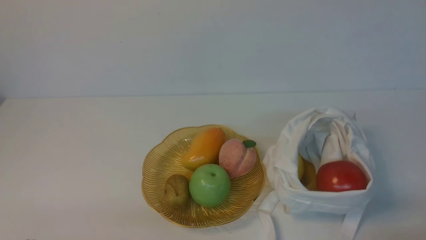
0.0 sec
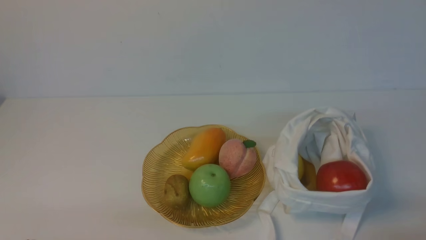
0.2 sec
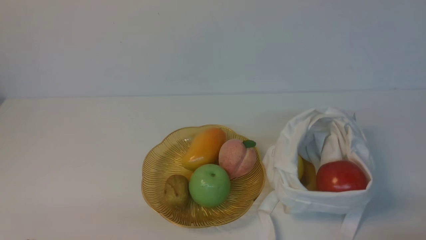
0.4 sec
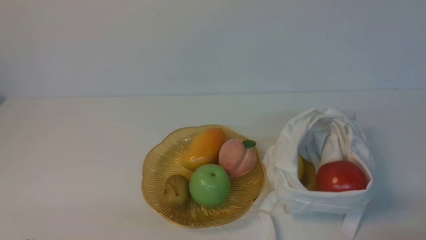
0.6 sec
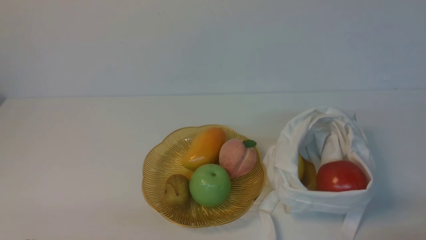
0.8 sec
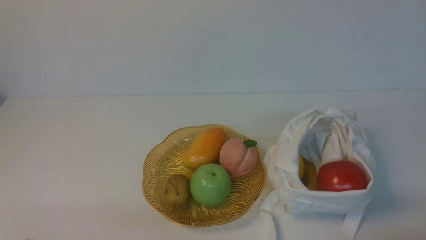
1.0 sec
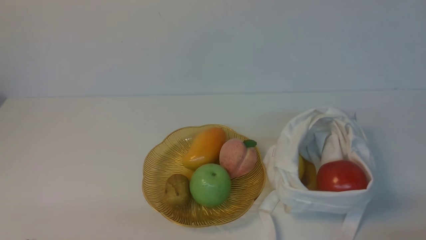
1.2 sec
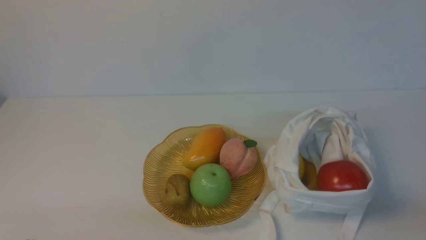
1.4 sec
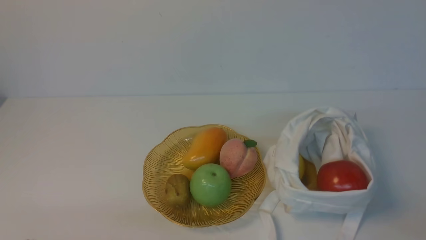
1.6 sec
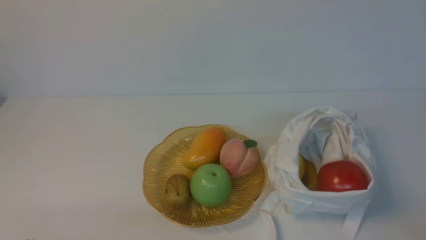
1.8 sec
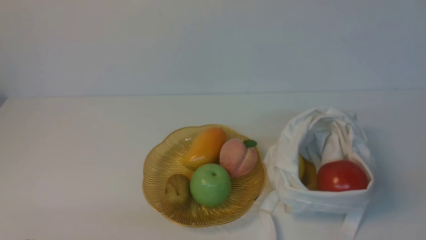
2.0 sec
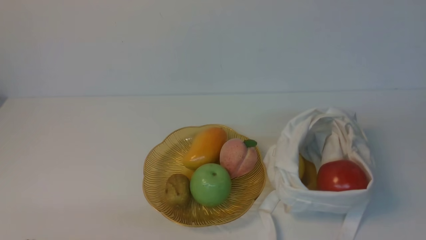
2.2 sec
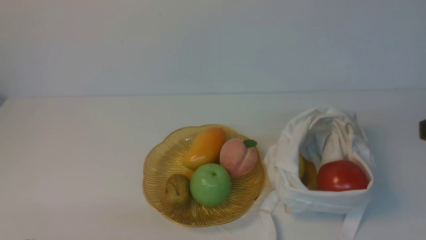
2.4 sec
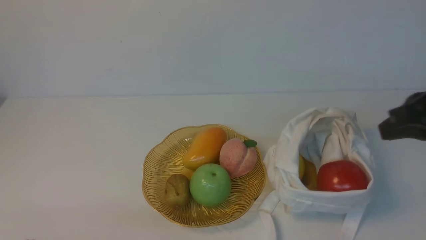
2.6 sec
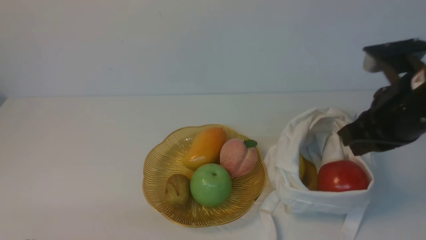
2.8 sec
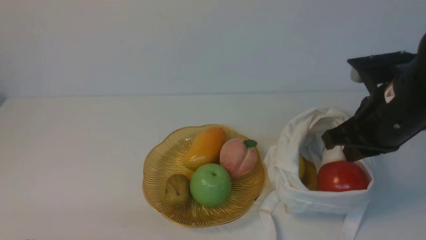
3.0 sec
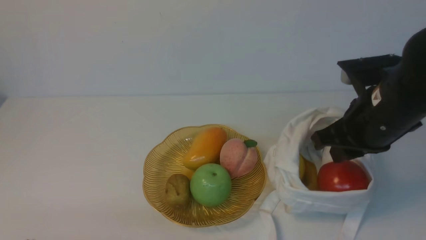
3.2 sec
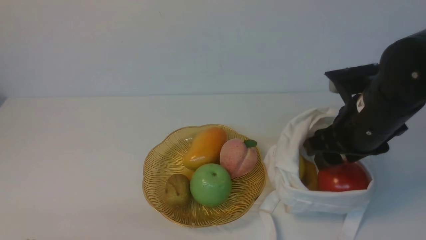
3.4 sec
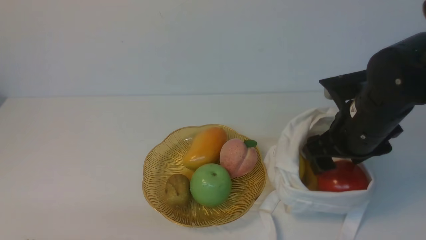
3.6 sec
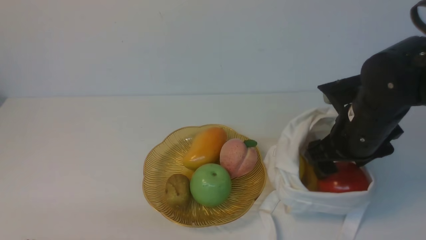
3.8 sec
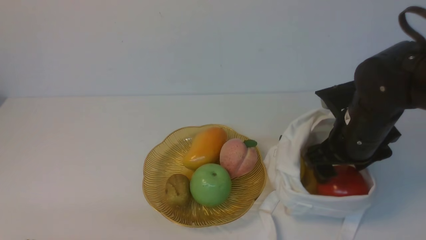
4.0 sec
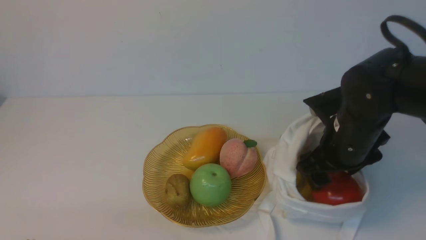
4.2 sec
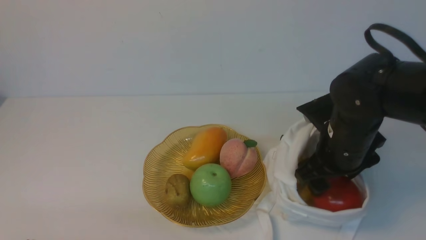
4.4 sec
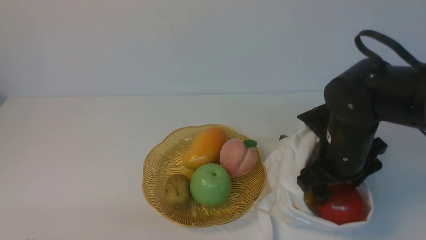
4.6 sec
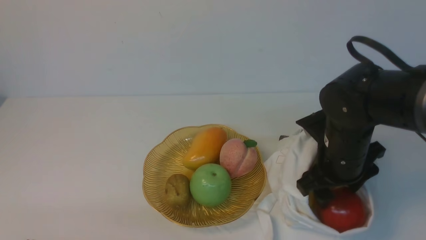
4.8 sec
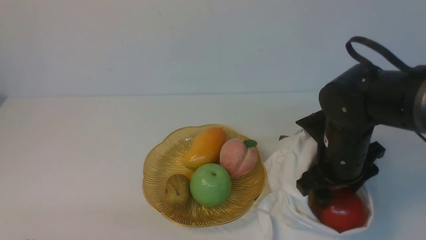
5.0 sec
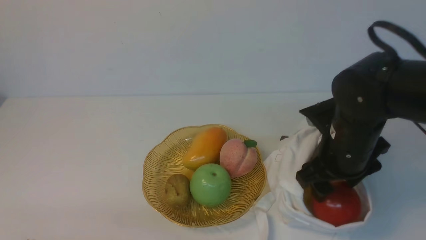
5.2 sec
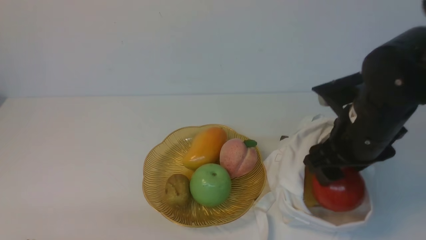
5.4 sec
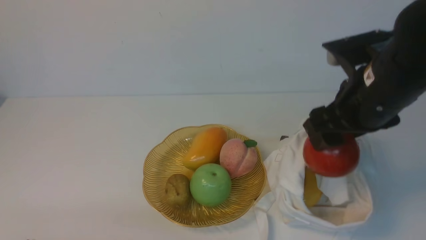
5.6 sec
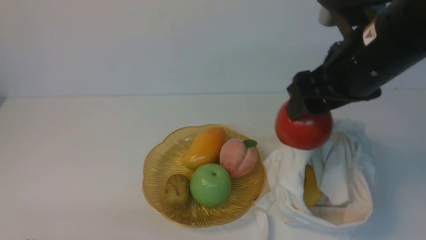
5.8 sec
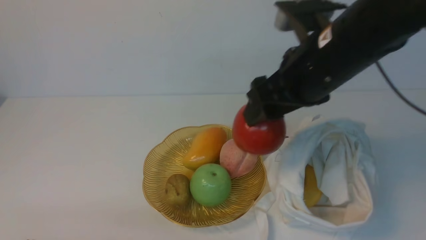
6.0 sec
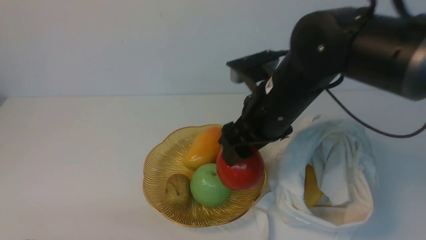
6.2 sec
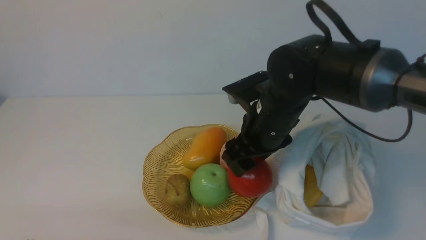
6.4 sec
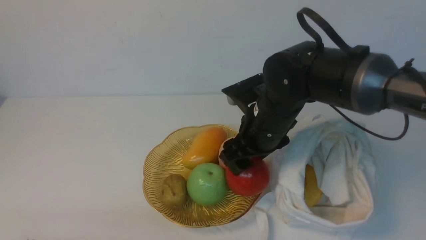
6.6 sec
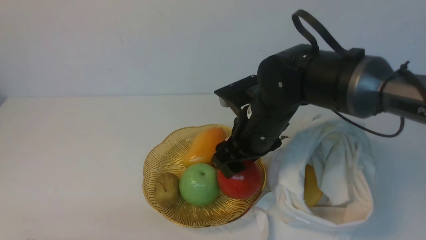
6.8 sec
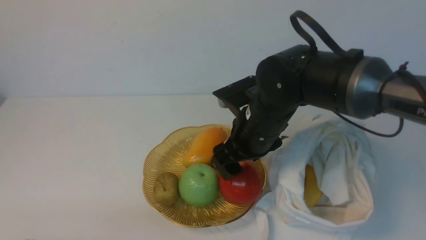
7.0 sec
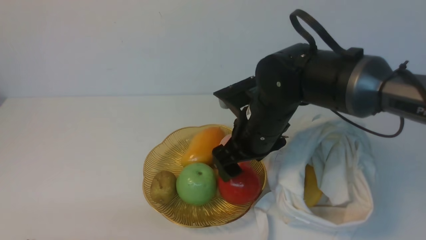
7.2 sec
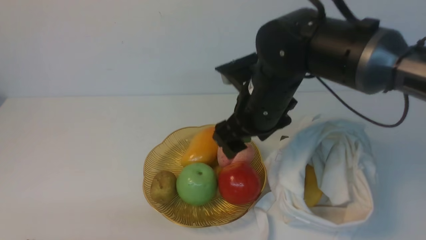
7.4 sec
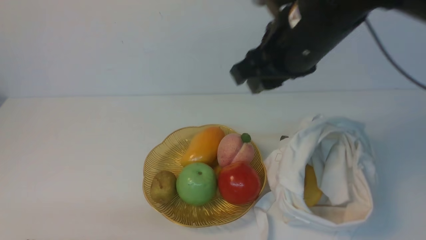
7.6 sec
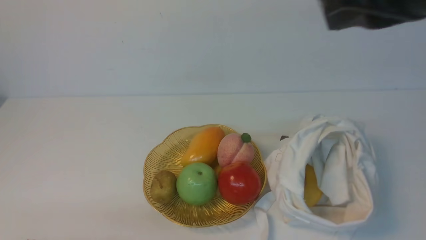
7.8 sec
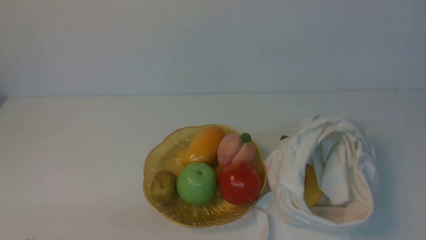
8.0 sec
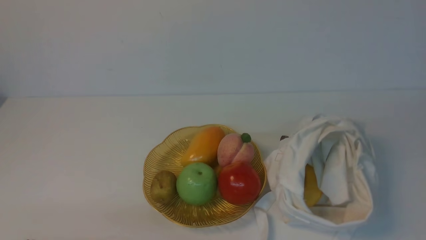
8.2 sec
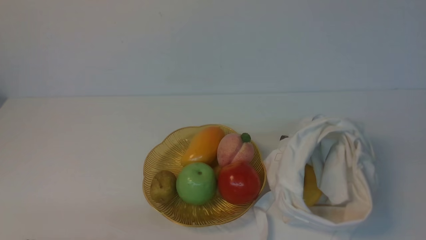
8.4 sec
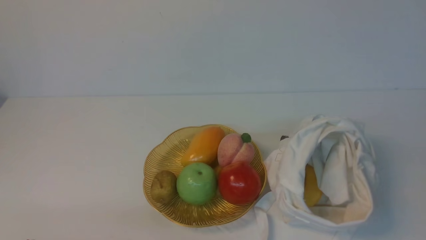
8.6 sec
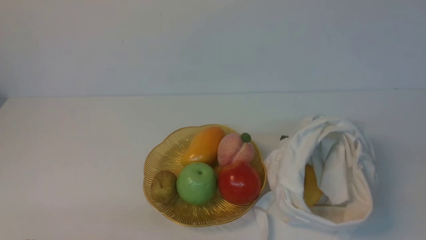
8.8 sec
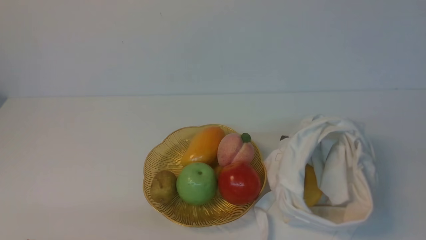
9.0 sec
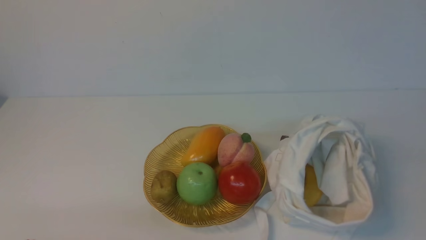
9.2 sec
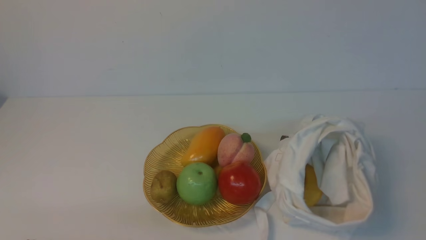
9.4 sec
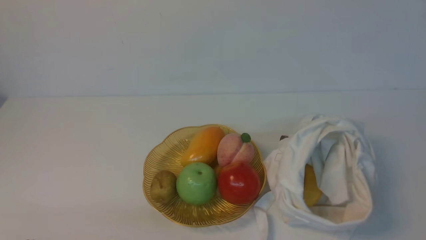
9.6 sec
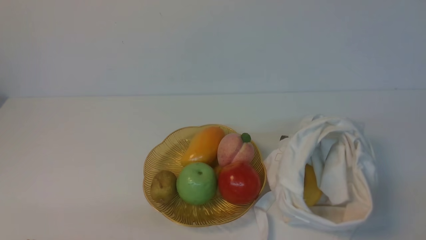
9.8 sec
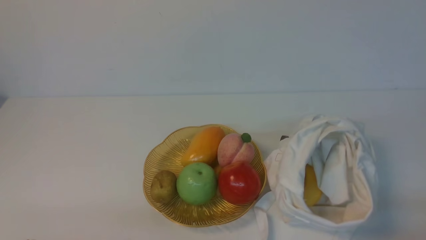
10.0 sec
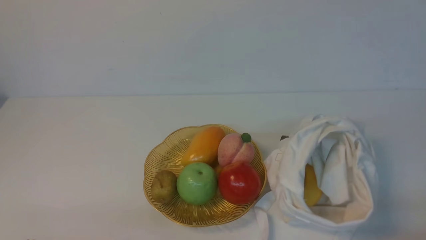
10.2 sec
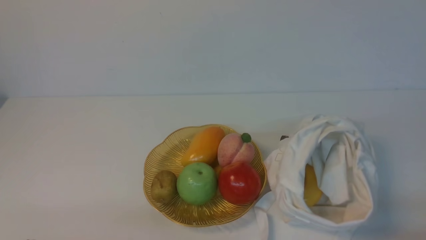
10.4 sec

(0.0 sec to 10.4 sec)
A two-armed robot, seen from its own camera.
Step, 0.0 sec - 5.2 sec: use the right arm to grab an apple from the bag.
Step, 5.4 sec - 7.2 sec: use the right arm to put the apple into the empty plate on the left.
1.4 sec - 3.0 sec: The right gripper shifts approximately 25 cm forward, upward and to the left.
3.0 sec - 4.4 sec: The right gripper goes roughly 10 cm downward, and opens.
4.4 sec - 6.0 sec: The right gripper shifts approximately 10 cm upward and to the left.
6.0 sec - 7.4 sec: The right gripper travels downward and back again, about 10 cm each way.
7.4 sec - 9.0 sec: The right gripper travels backward and to the right by roughly 40 cm, and closes its fingers.

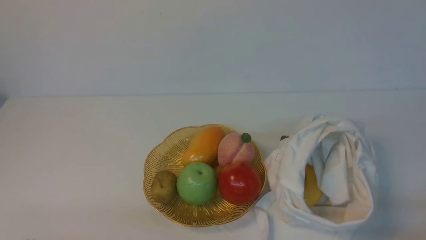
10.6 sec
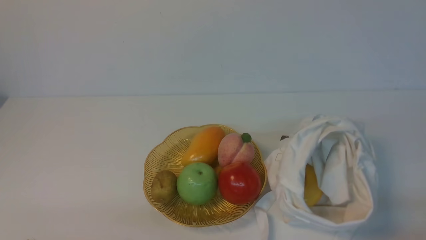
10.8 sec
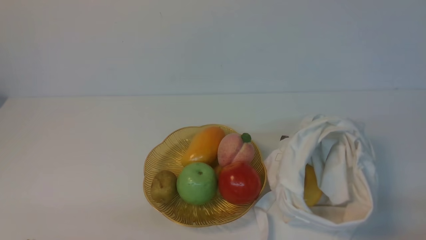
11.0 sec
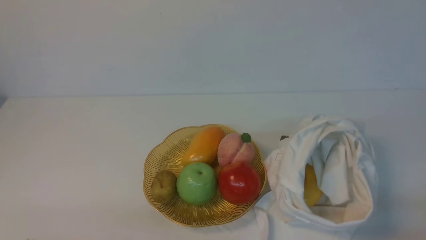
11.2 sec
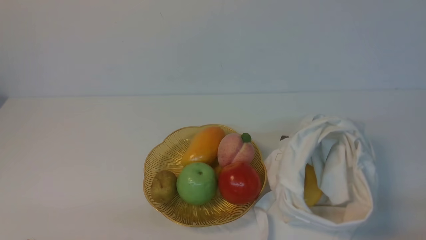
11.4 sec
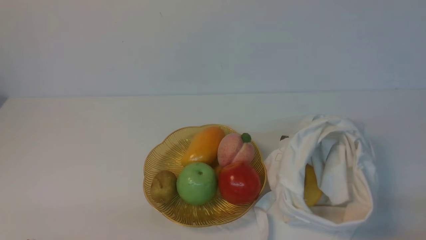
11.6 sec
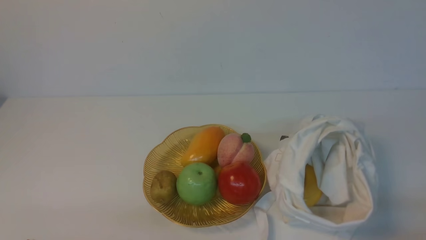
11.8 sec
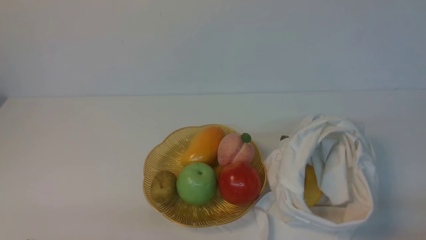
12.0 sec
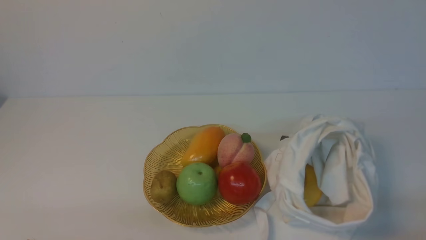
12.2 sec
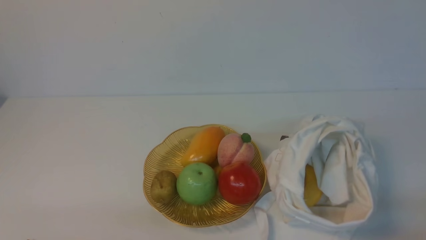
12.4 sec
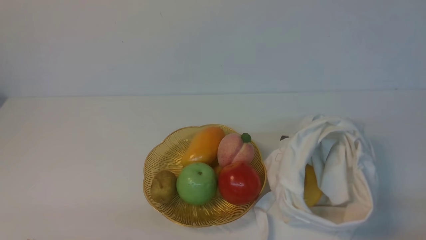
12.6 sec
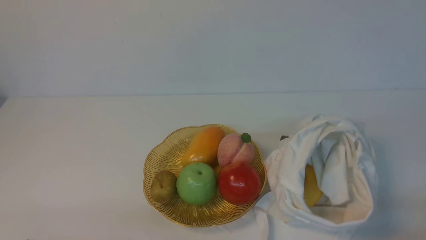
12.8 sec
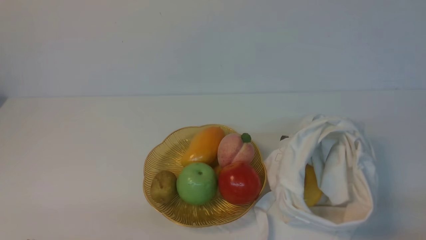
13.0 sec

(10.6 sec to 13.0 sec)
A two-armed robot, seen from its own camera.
10.6 sec - 13.0 sec: Neither gripper changes place.
